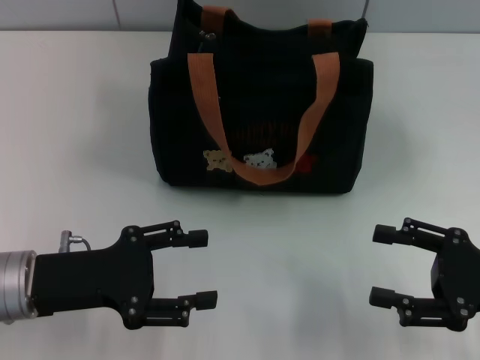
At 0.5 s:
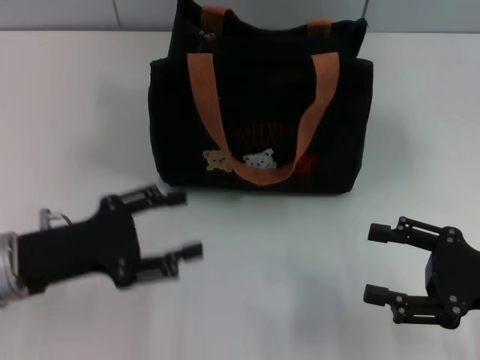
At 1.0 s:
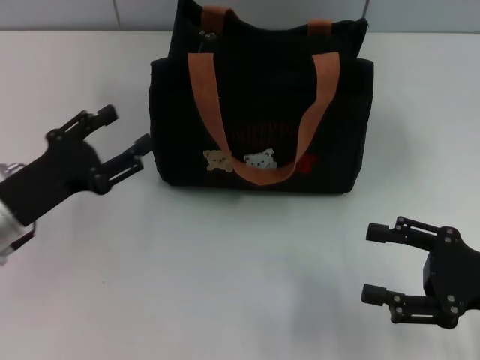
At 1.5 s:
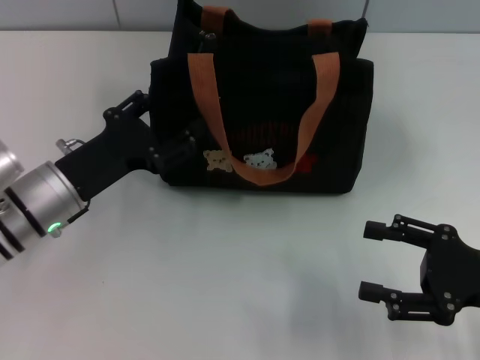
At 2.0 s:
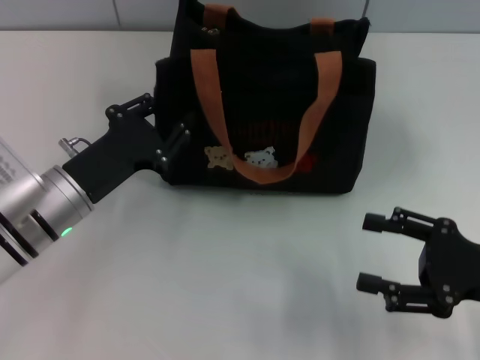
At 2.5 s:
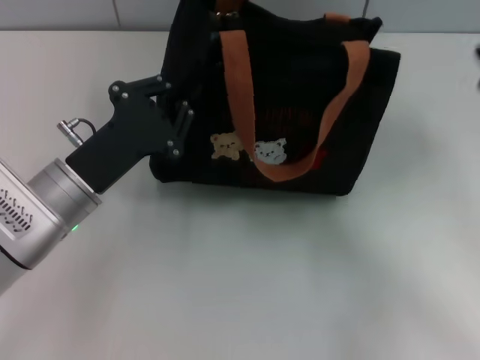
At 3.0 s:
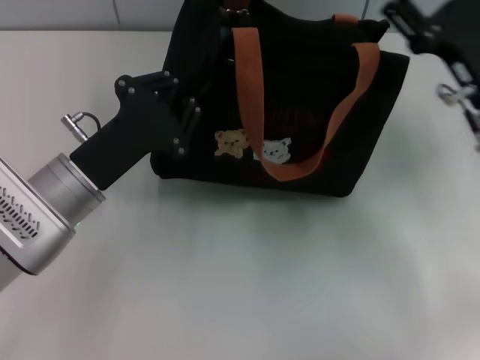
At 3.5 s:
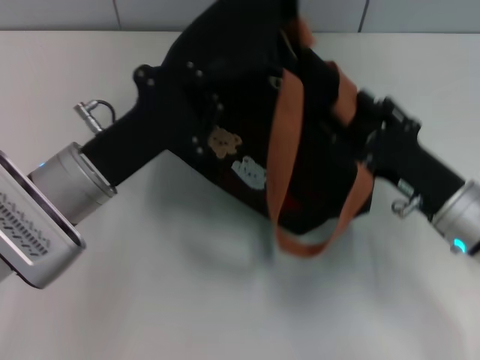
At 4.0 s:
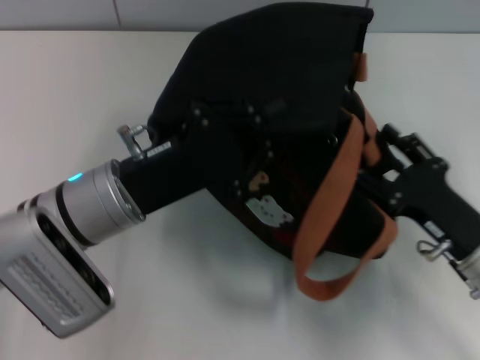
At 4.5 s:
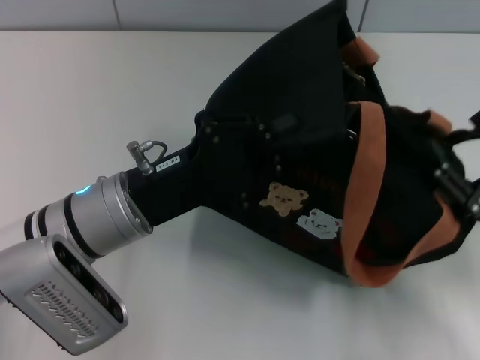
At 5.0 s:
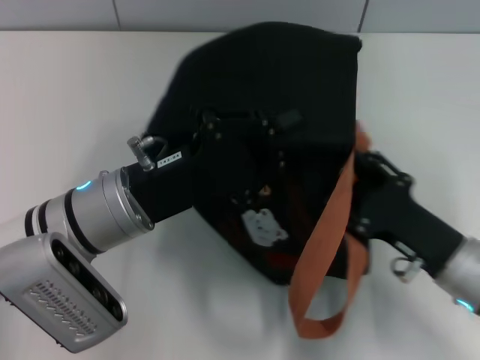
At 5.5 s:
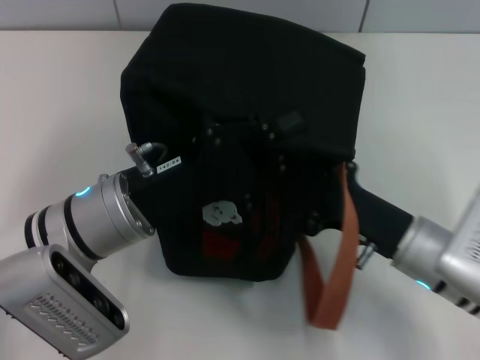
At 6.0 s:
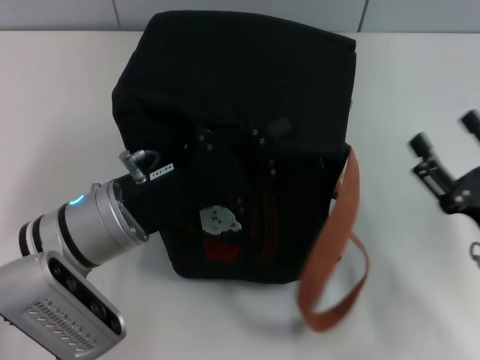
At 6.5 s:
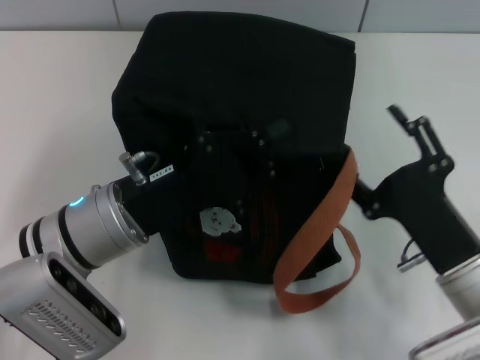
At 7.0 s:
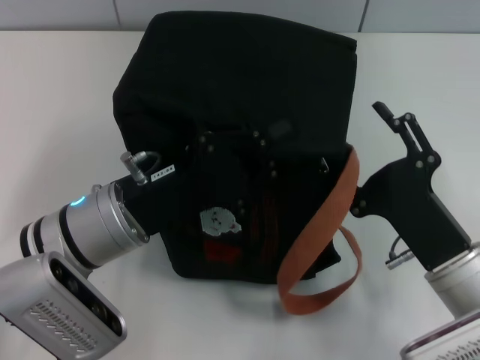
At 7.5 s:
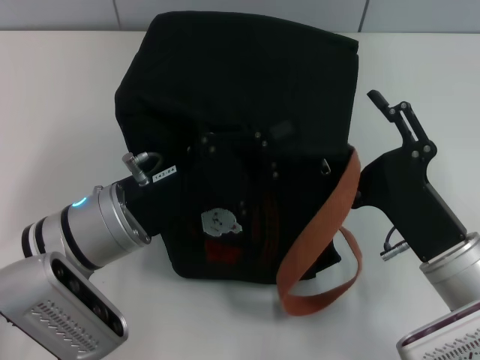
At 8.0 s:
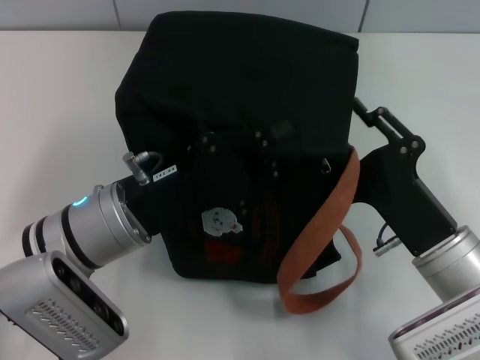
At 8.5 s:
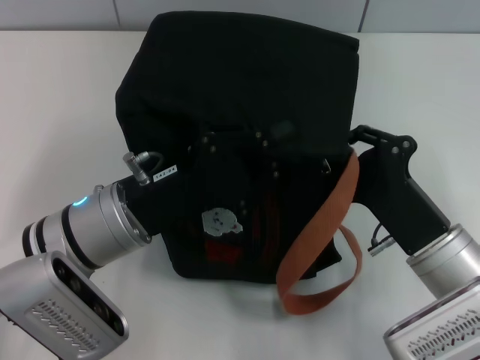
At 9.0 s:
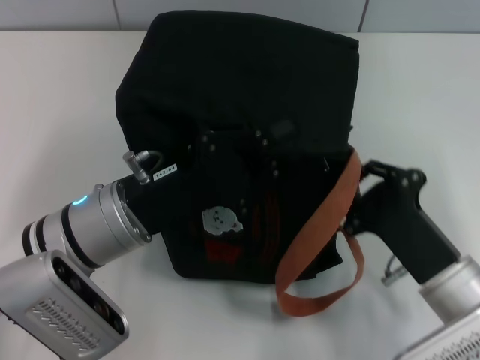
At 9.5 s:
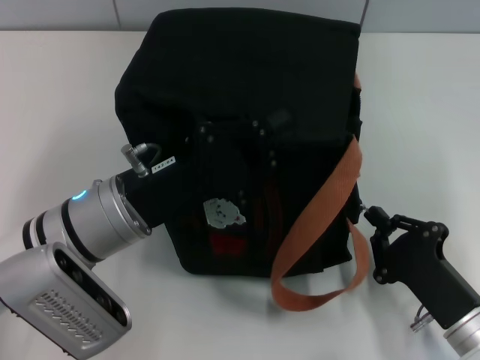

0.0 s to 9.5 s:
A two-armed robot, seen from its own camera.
0.0 to 2.0 s: The left gripper goes some 5 cm forward.
2.0 to 4.0 s: The left gripper travels to the right by approximately 5 cm, and closes its fingers. Meanwhile the right gripper reaches approximately 10 cm forward, then returns.
4.0 to 5.5 s: The right gripper heads to the left, covering approximately 5 cm.
5.5 to 7.5 s: The right gripper travels to the right and back again, about 10 cm each way.
7.5 to 9.5 s: The right gripper moves downward, some 5 cm, and closes.

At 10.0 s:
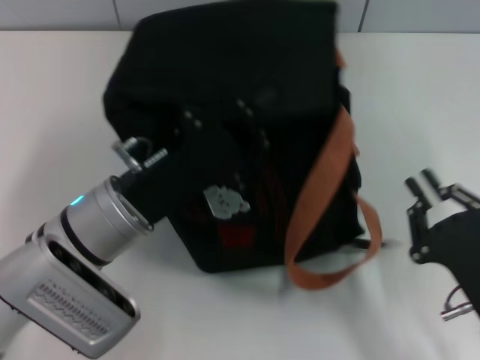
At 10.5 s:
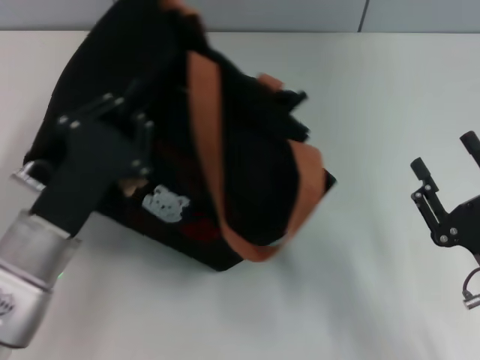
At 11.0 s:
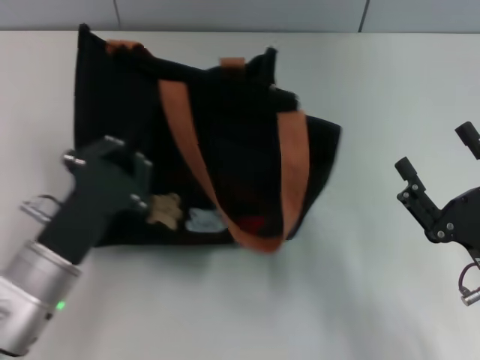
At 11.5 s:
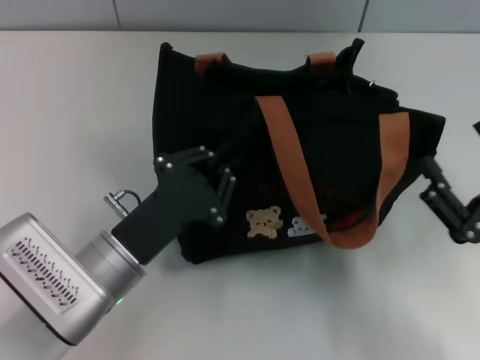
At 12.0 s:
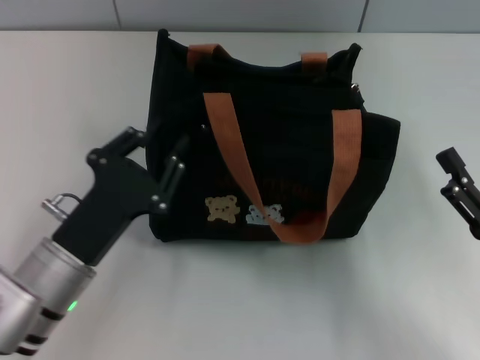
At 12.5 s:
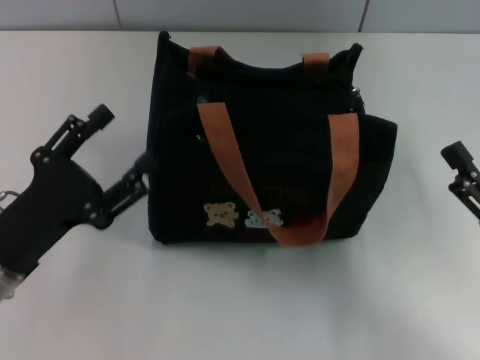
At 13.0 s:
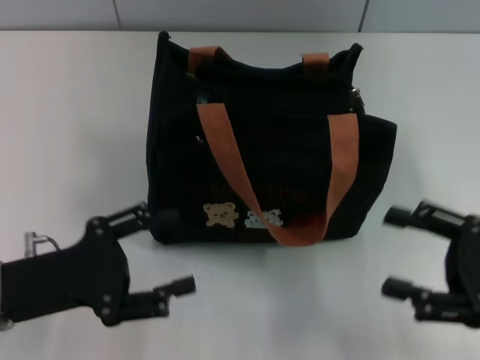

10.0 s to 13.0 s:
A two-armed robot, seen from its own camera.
Step, 10.5 to 12.0 s: Grab the bag with your left hand.
10.0 to 11.5 s: The right gripper opens.
11.5 to 13.0 s: The left gripper heads to the left, covering roughly 10 cm, and opens. Meanwhile the right gripper ends up some 5 cm from where it was.

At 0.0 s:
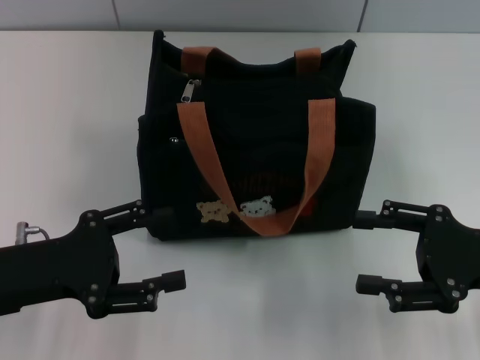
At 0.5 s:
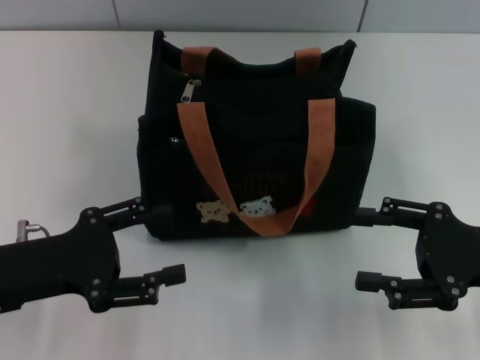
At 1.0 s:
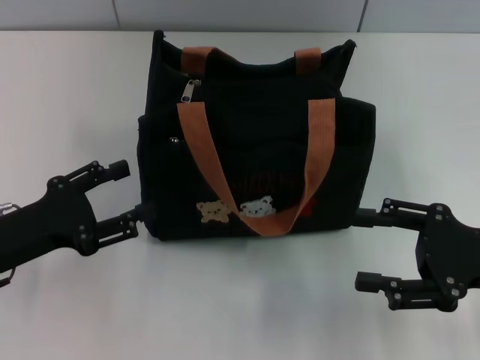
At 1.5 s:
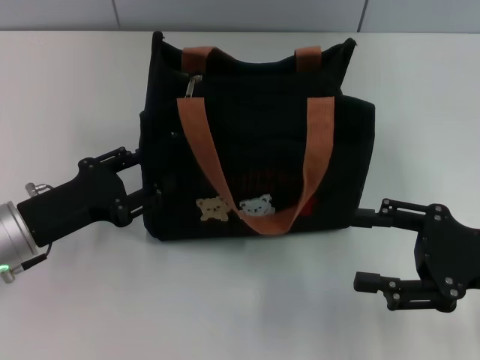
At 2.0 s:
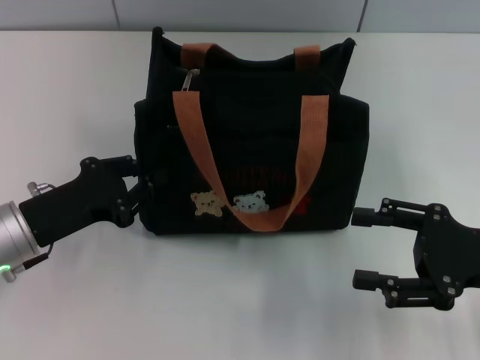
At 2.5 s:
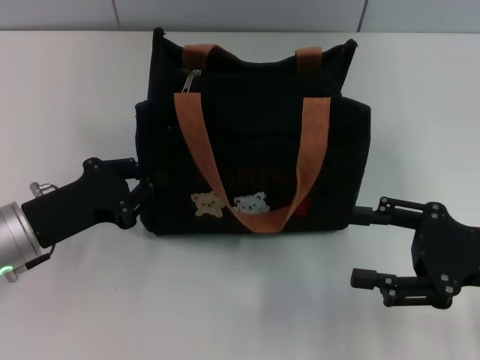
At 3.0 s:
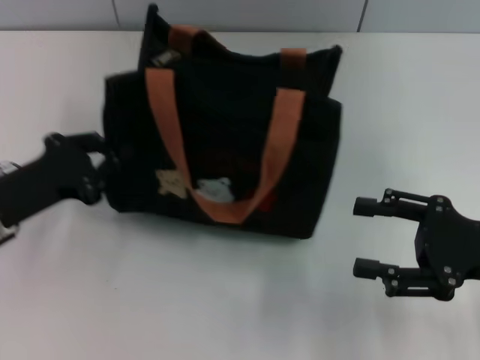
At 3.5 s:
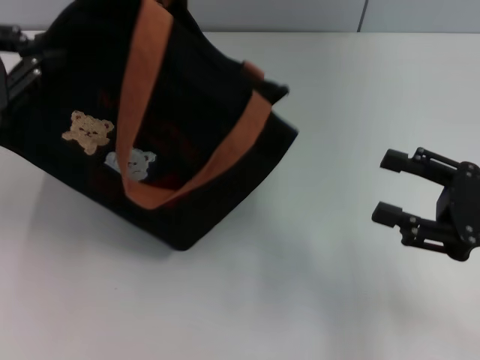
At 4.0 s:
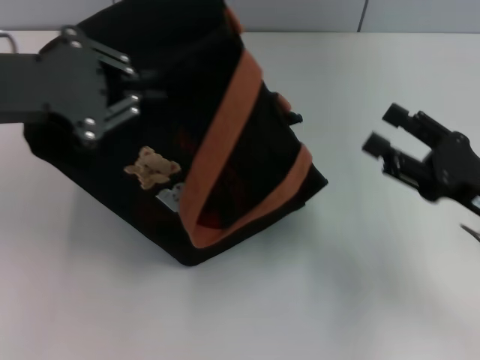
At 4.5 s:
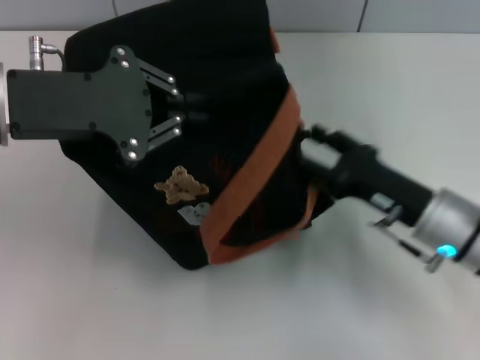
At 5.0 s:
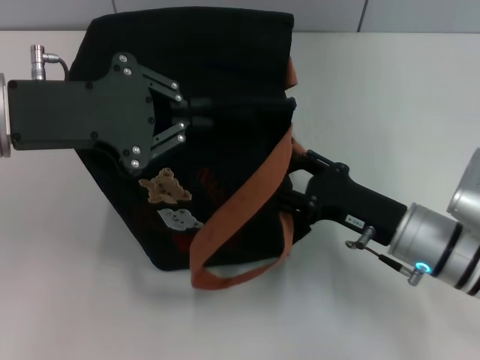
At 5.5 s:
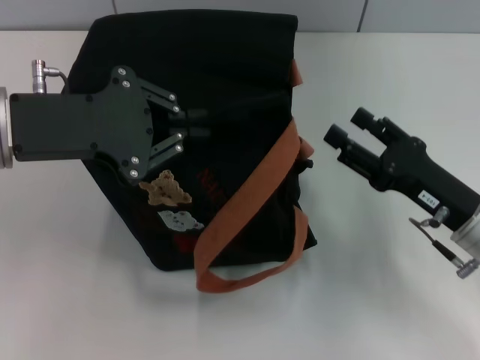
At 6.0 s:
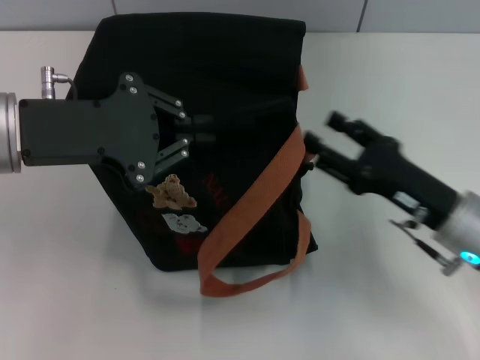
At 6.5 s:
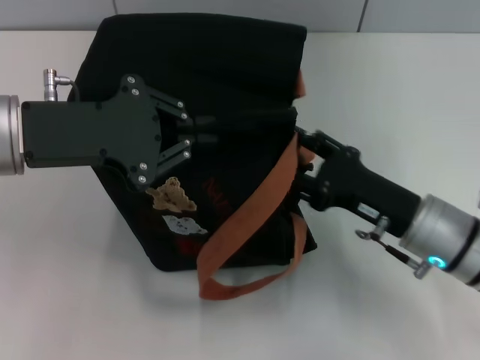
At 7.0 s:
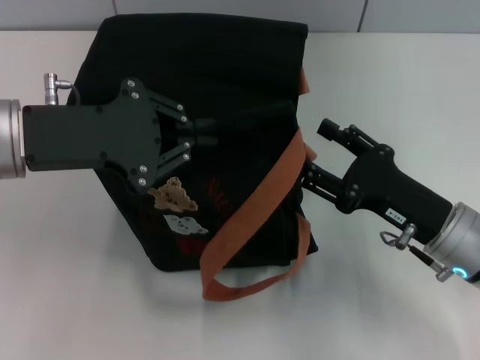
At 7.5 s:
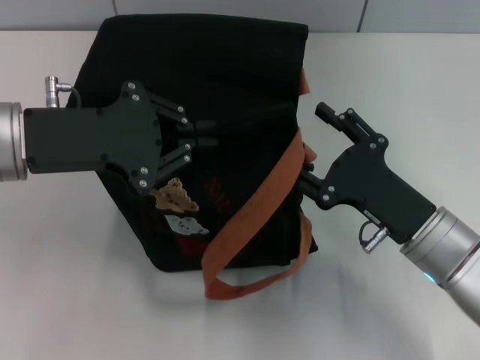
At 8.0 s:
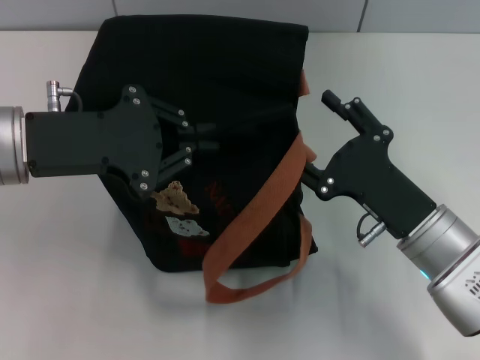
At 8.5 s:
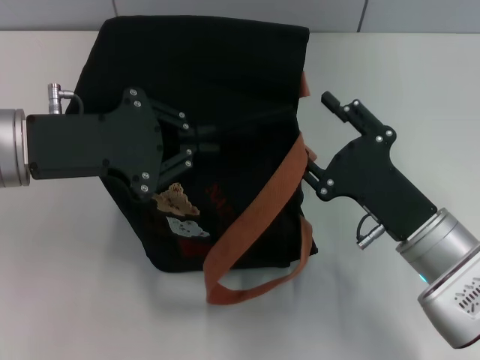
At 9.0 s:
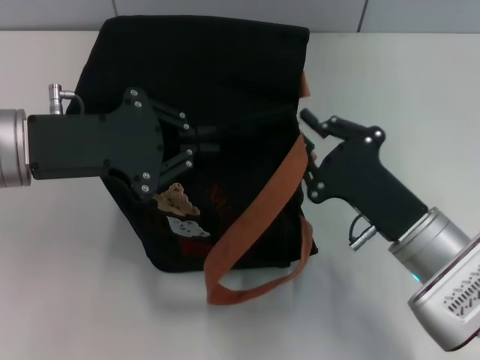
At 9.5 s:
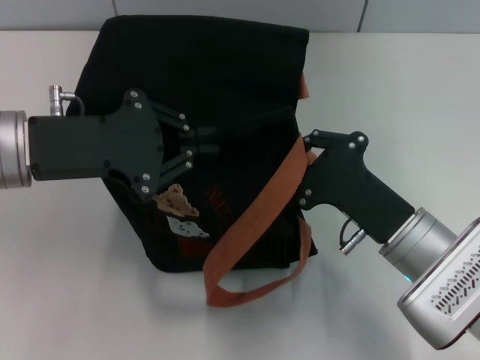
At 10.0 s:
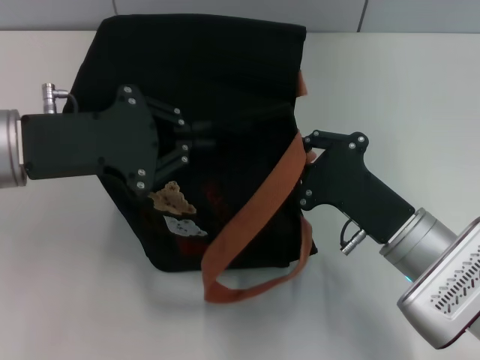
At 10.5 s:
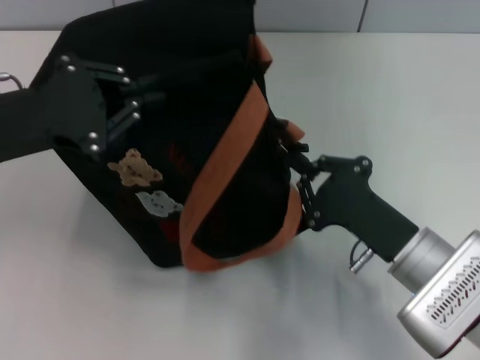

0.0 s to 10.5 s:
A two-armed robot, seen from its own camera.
0.0 to 2.0 s: The left gripper shifts by approximately 5 cm, and closes up.
2.0 to 4.0 s: The left gripper goes roughly 20 cm upward.
4.0 to 6.5 s: The right gripper goes left and right, approximately 10 cm each way, reversing 2 times. The left gripper shifts by about 5 cm.
8.5 to 10.5 s: The right gripper closes its fingers.

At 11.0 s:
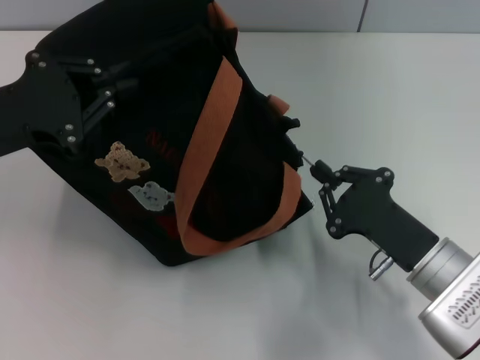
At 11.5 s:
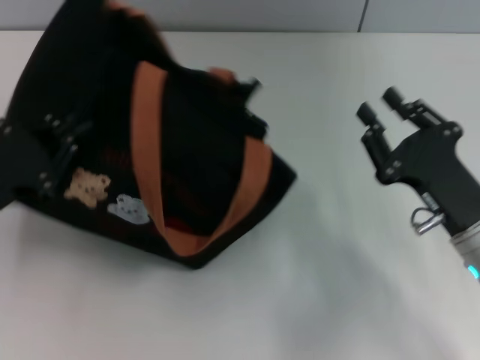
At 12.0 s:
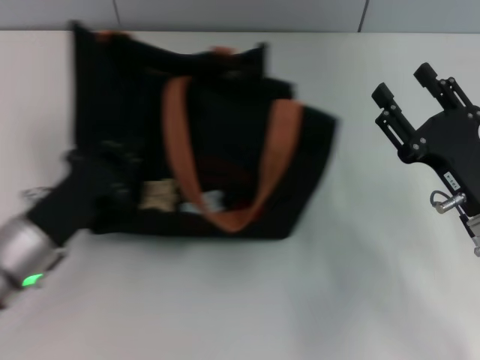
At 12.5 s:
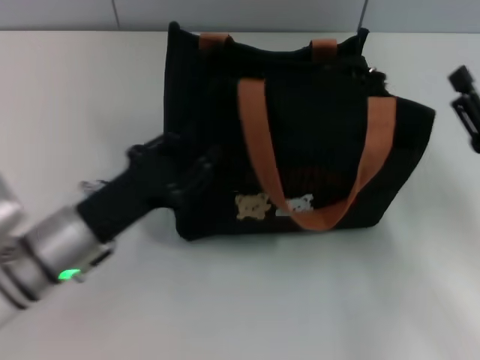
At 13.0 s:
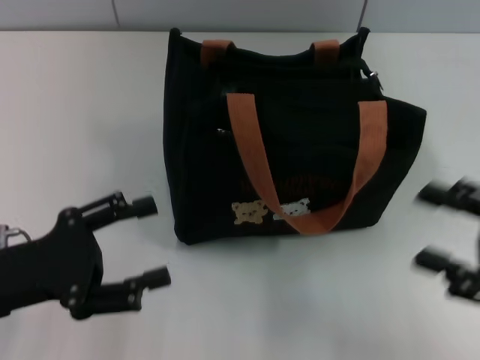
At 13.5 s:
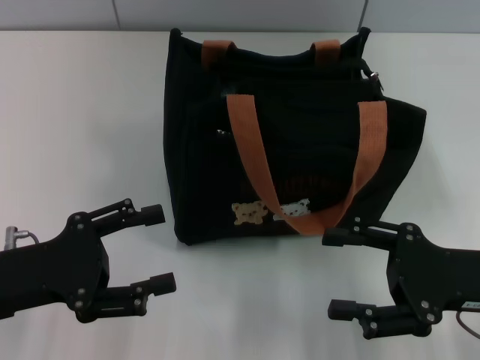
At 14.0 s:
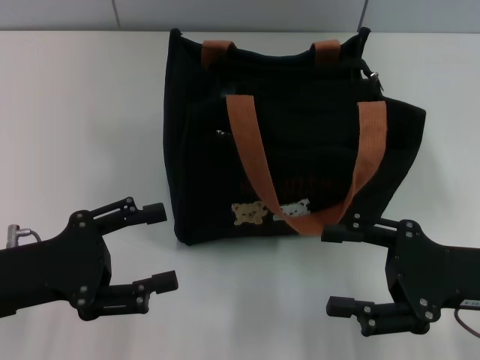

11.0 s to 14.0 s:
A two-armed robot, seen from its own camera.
Step, 11.5 to 12.5 s: Grab the bag with your left hand.
11.0 to 12.5 s: The right gripper is displaced to the right by about 10 cm, and opens. Meanwhile the left gripper moves downward and to the right, some 15 cm.
12.5 to 14.0 s: The left gripper heads to the left, covering approximately 5 cm, and opens up.
